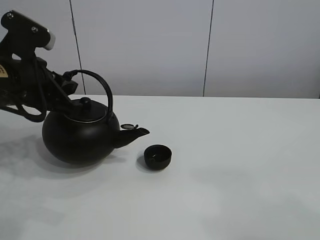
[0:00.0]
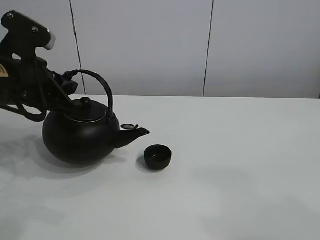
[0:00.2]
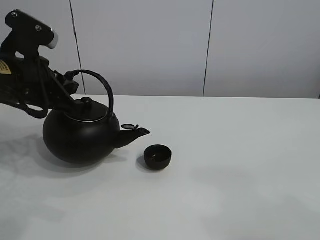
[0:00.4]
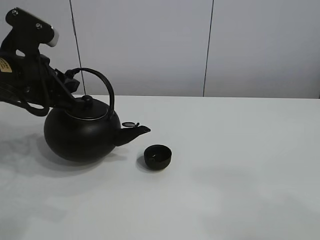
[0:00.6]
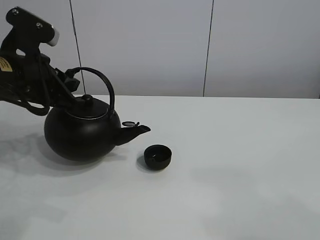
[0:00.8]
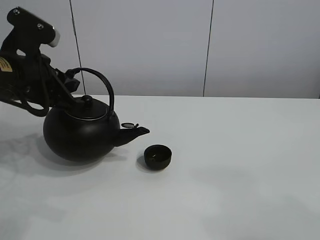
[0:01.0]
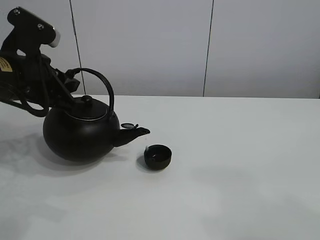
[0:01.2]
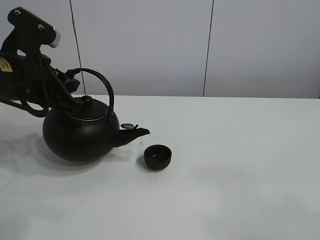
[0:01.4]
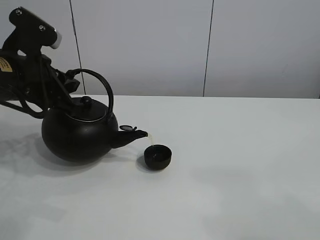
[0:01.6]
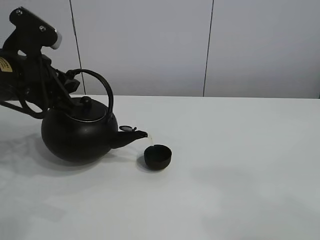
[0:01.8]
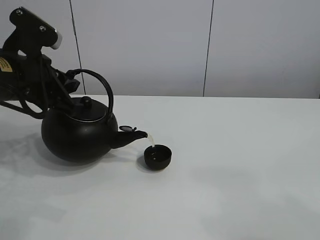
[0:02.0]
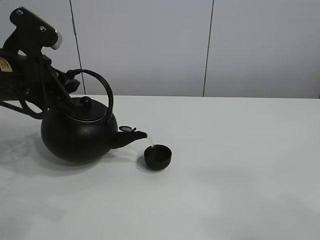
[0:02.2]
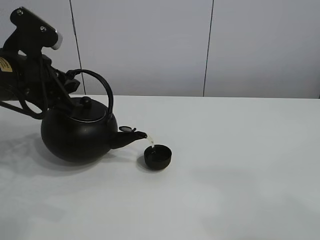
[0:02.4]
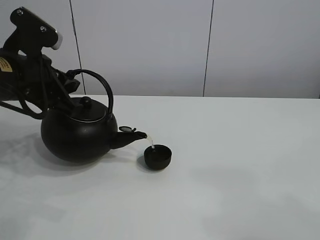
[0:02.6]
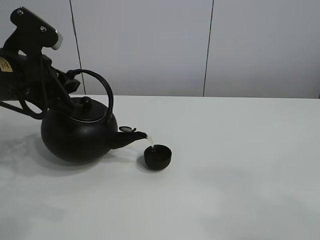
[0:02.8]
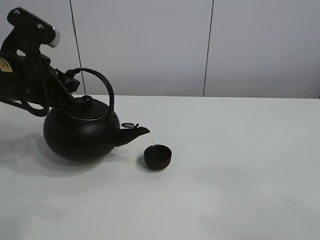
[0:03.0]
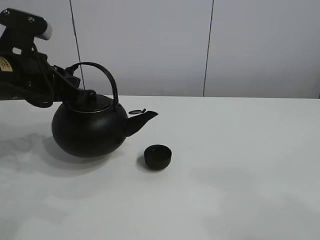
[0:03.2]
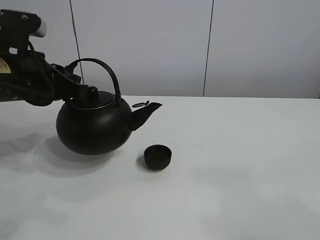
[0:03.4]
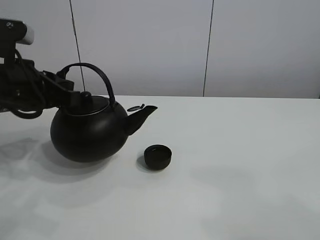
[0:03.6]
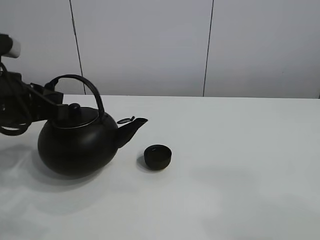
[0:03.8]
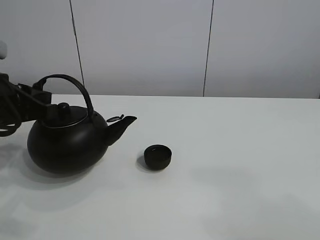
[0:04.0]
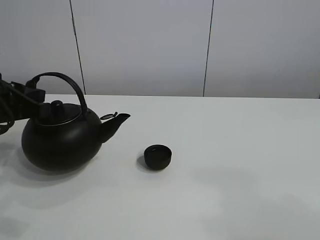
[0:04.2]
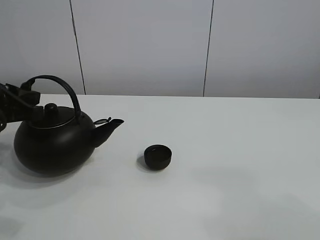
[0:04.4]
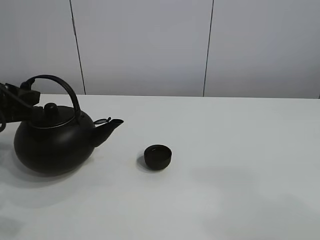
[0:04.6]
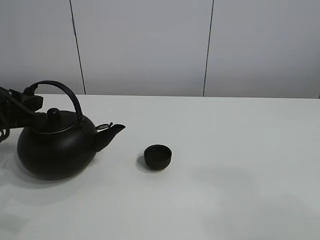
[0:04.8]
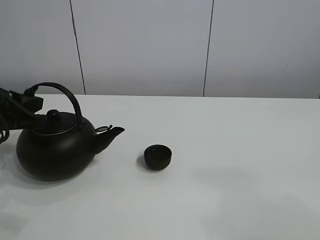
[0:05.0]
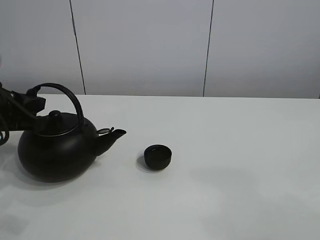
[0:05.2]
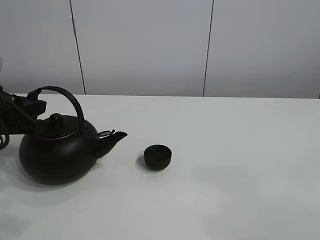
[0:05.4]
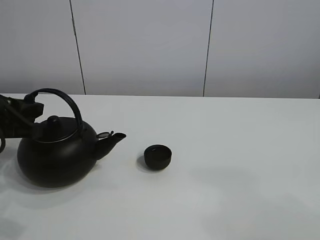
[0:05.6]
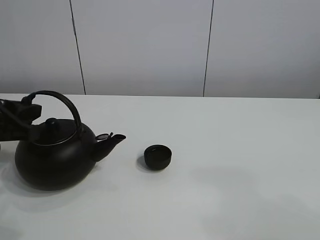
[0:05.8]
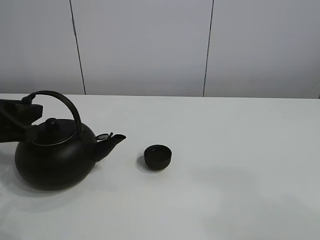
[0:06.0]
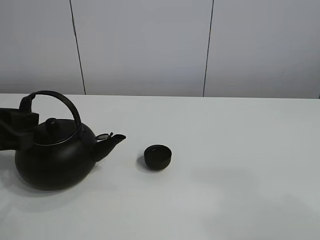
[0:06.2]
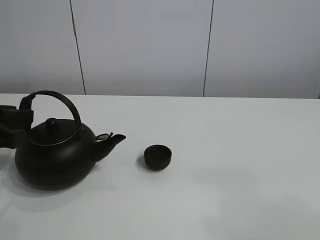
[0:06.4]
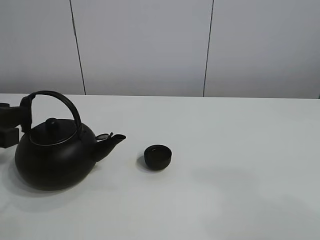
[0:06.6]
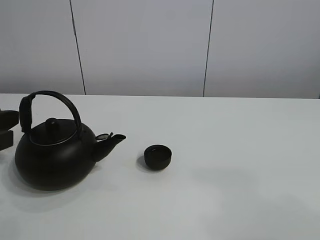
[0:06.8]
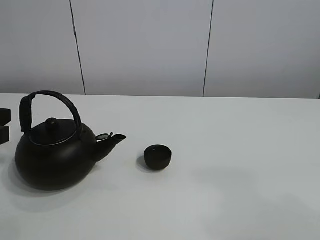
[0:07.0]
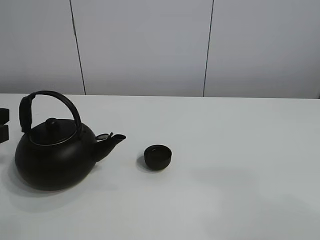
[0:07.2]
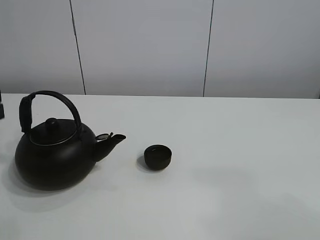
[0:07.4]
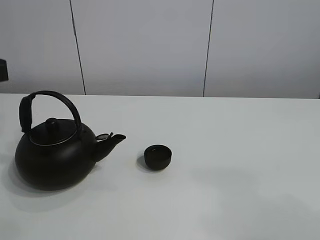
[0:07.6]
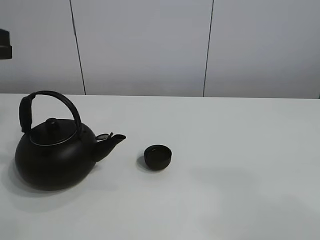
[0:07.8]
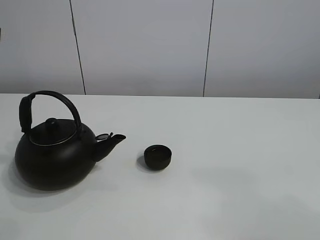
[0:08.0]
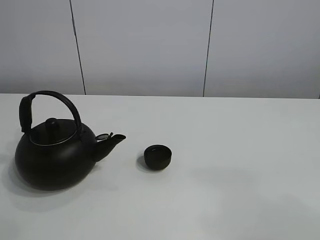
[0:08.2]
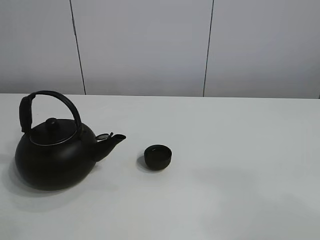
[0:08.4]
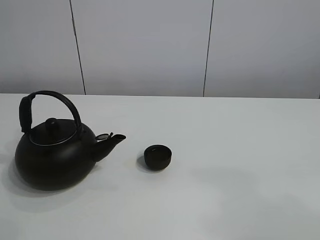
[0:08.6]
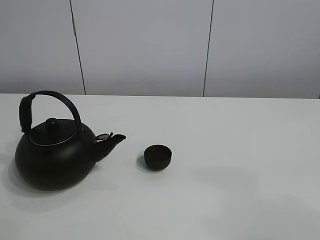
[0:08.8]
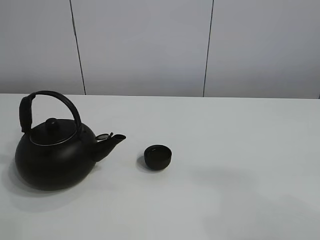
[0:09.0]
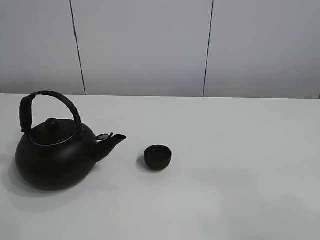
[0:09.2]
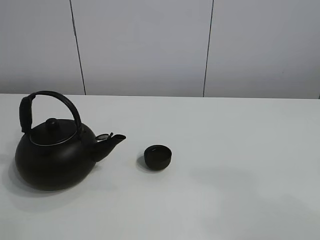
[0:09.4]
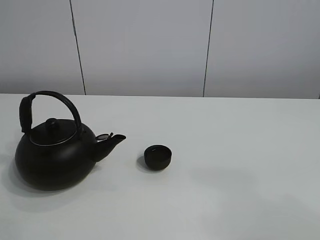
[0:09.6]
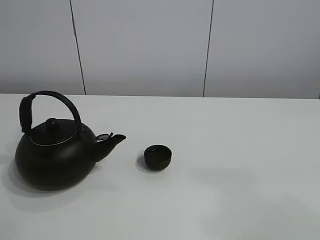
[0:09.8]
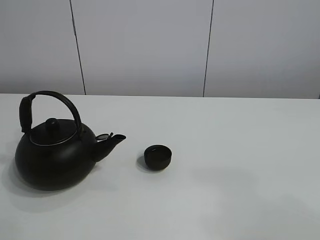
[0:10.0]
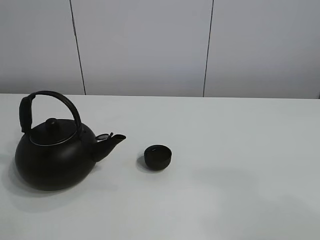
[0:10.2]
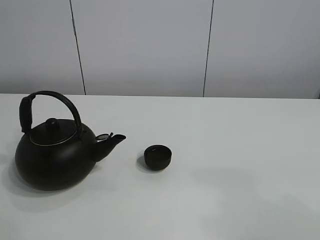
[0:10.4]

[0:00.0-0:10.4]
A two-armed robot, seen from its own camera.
Task of the whole recording: pour tea into the teacup.
Step, 0:00.0 to 0:03.0: Pour tea into the teacup with the left gripper.
0:00.0 to 0:01.4: The two grippers keep their place.
0:01.4 to 0:03.0: Neither gripper changes place.
0:03.0 to 0:04.4: The left gripper heads to the left, covering about 5 cm.
0:04.4 to 0:06.0: The grippers stay close to where they were, moving slightly.
0:06.0 to 0:07.4: The grippers make only small movements.

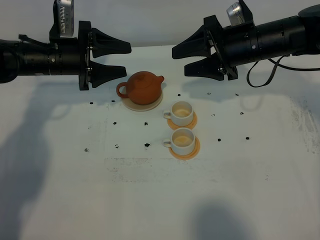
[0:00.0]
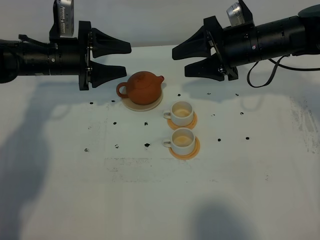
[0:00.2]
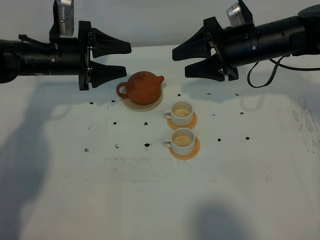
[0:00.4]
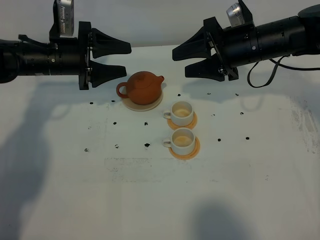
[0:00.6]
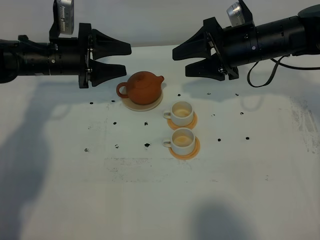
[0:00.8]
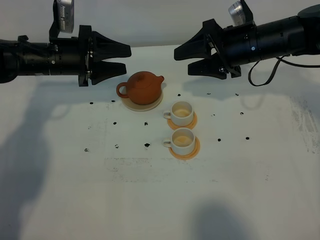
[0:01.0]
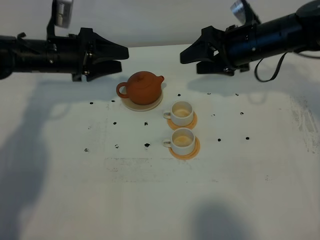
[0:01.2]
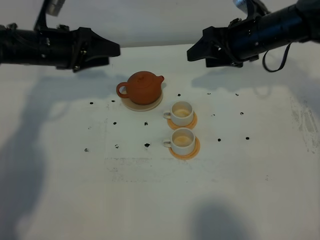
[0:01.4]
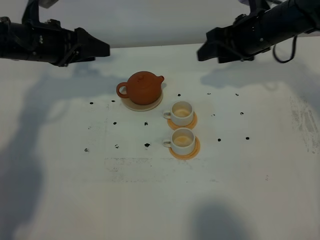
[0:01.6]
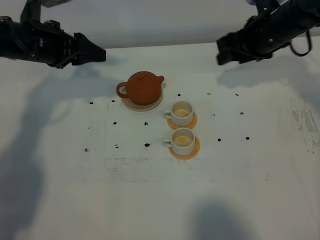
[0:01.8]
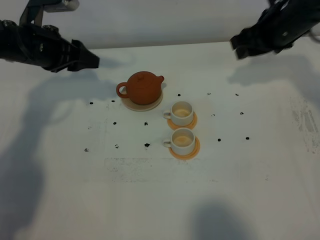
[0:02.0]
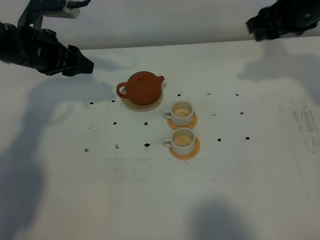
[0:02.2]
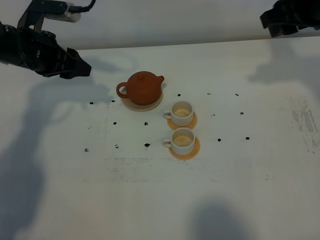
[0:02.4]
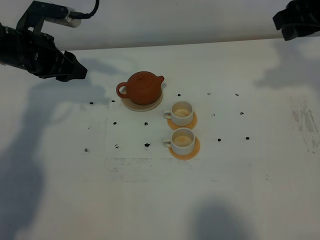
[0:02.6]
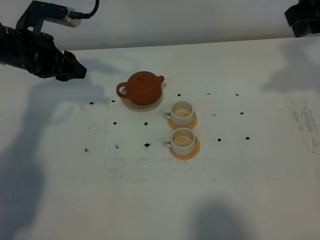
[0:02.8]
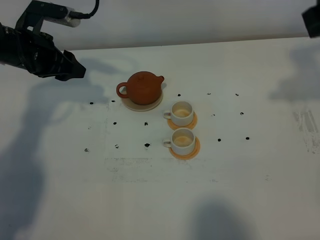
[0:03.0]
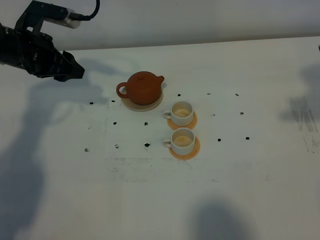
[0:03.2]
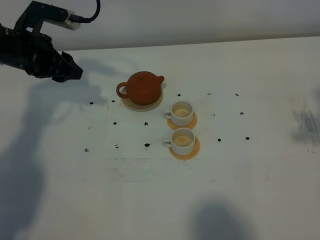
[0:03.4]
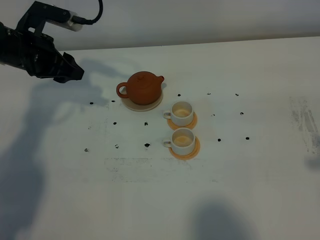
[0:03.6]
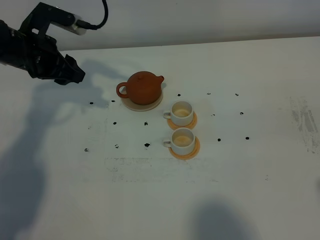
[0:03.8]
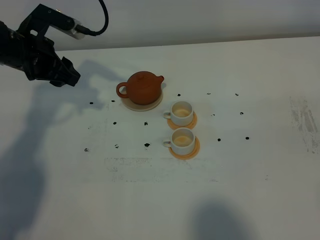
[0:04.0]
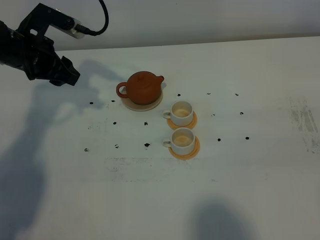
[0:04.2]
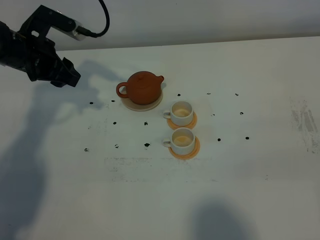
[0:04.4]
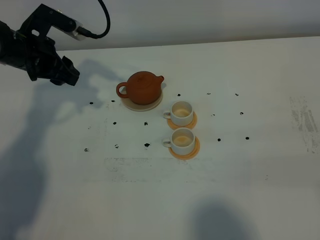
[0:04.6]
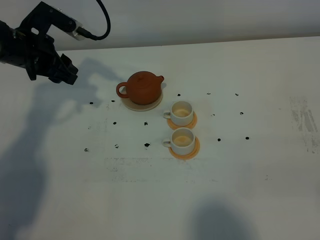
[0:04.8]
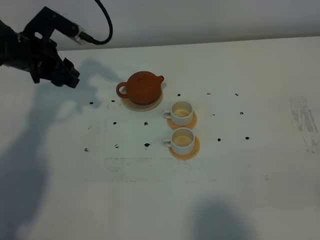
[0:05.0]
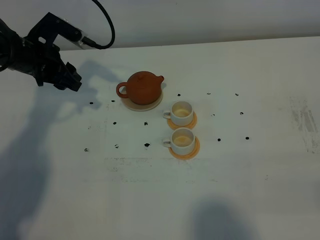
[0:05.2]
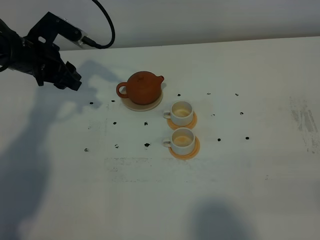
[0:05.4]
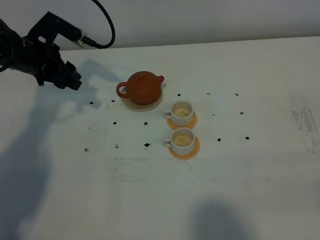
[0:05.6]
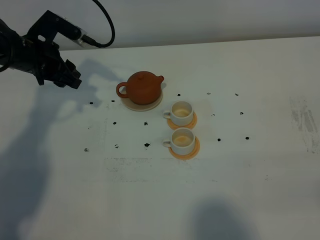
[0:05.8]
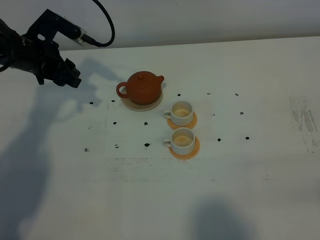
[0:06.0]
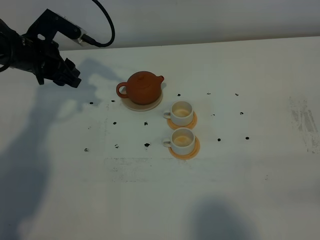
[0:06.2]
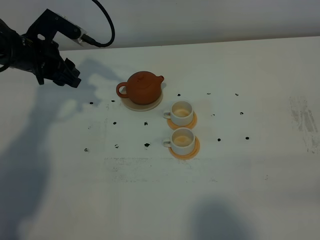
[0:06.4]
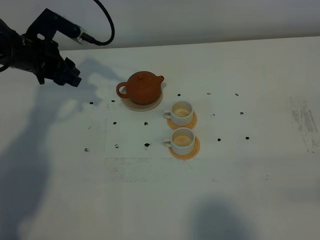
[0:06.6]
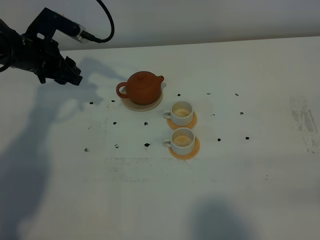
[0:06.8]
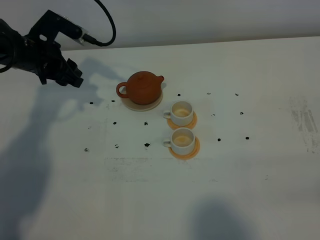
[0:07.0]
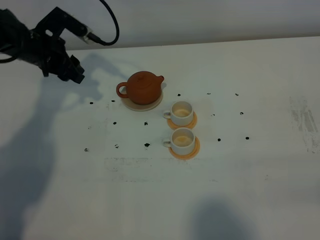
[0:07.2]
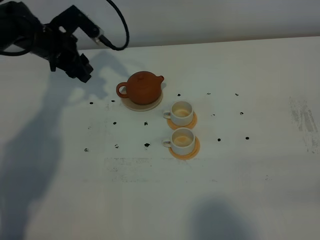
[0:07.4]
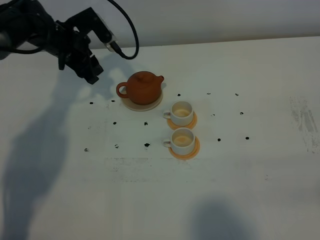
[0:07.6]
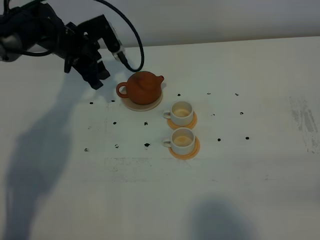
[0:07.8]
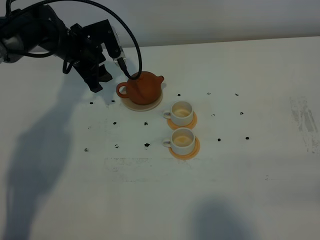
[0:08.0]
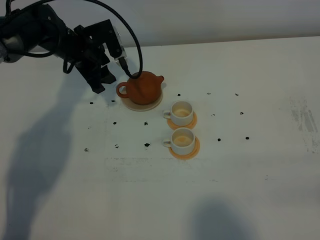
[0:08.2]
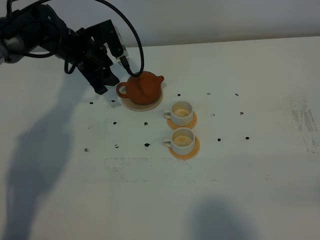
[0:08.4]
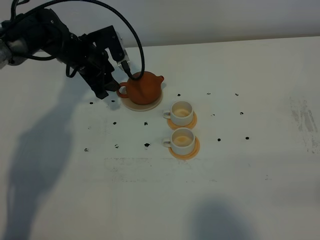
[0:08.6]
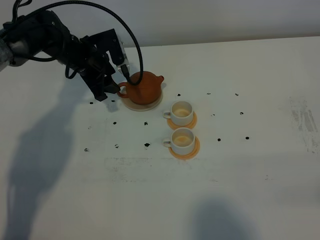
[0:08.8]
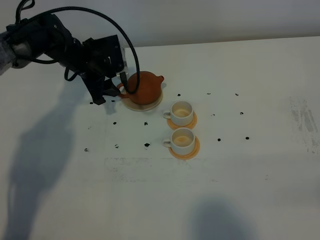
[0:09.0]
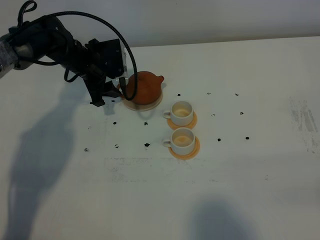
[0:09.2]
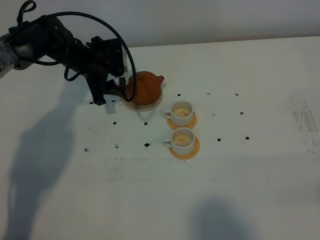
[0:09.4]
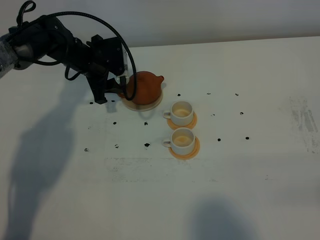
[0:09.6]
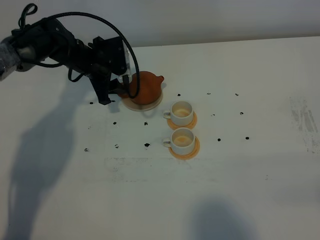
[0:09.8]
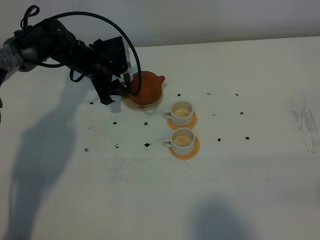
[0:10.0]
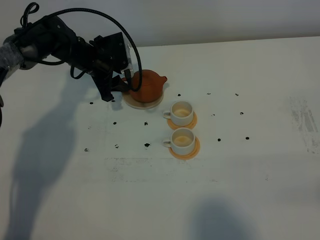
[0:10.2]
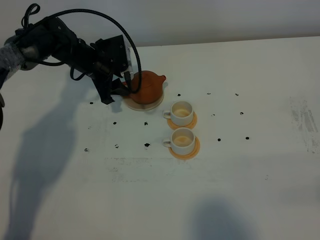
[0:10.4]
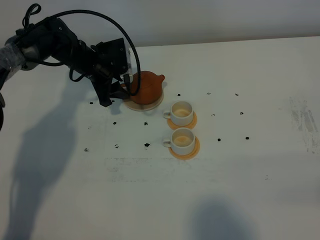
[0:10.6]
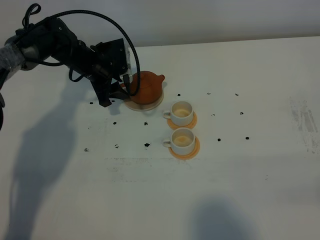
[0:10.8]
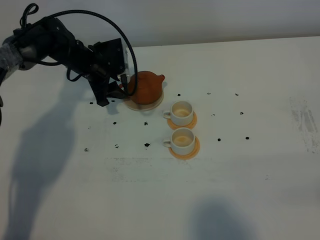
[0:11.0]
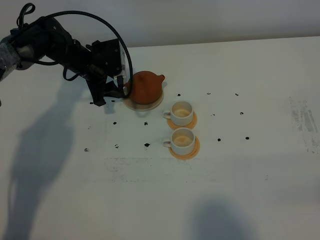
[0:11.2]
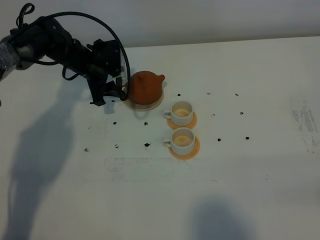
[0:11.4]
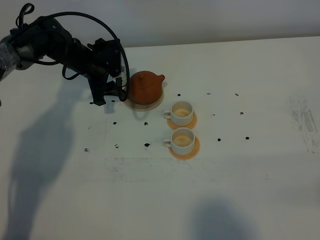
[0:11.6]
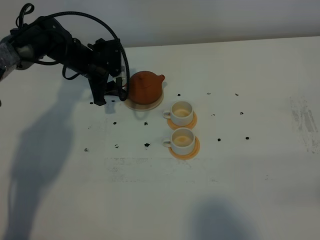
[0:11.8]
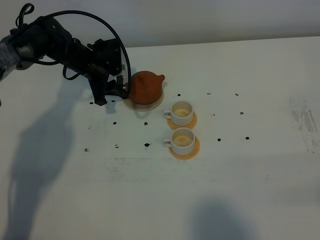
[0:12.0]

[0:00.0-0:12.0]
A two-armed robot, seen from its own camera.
Task of the whole recording: grasp the brown teapot and pour the tea into the two white teacups one by one, put the brown teapot back in its original place.
0:00.0 to 0:01.6: The left gripper shifts approximately 5 cm upward.
0:01.6 to 0:03.0: The right gripper travels upward, backward and to the right by some 25 cm.
0:03.0 to 0:04.4: The right gripper goes about 25 cm backward.
0:06.0 to 0:07.6: The left gripper goes about 5 cm forward.
0:09.0 to 0:12.0: The grippers move only a little.
